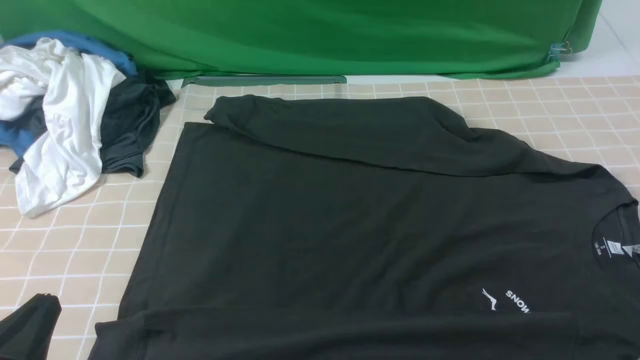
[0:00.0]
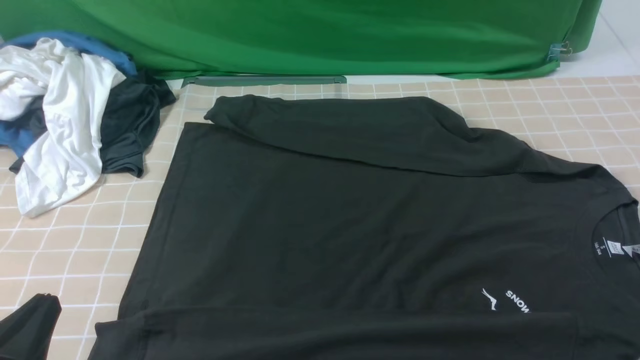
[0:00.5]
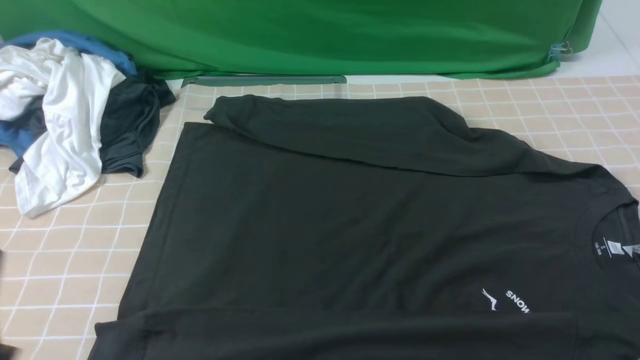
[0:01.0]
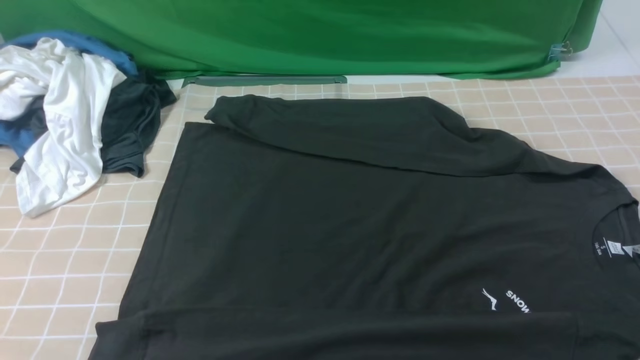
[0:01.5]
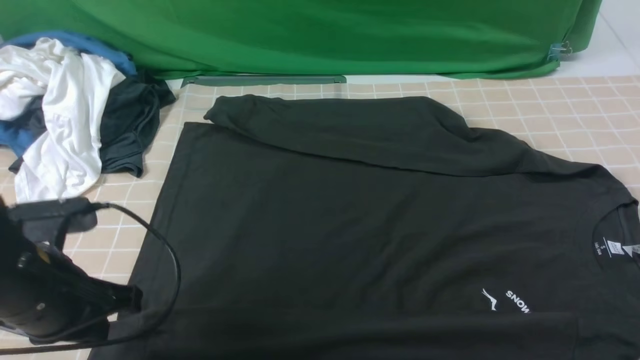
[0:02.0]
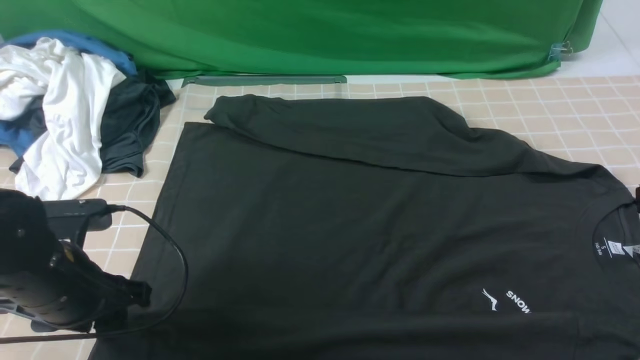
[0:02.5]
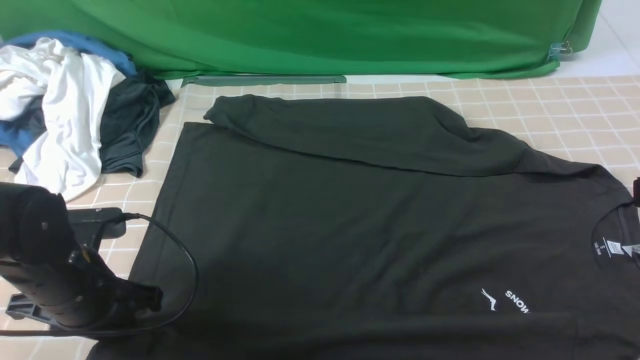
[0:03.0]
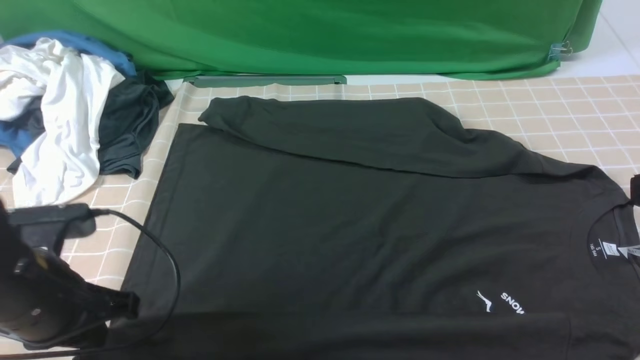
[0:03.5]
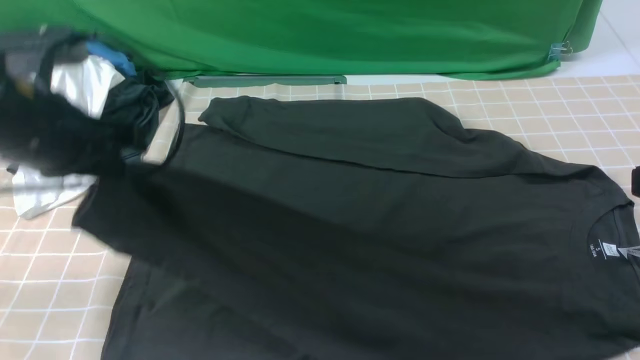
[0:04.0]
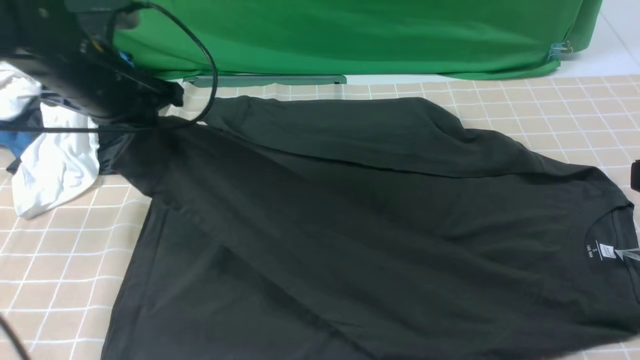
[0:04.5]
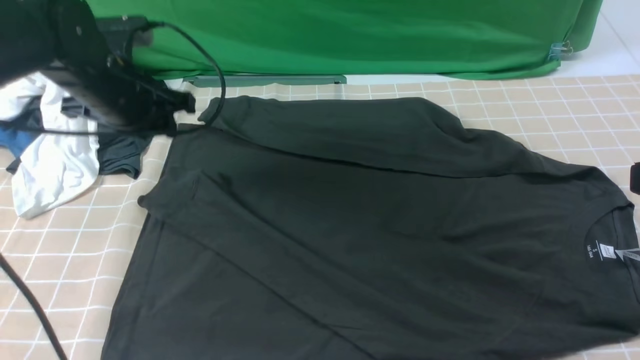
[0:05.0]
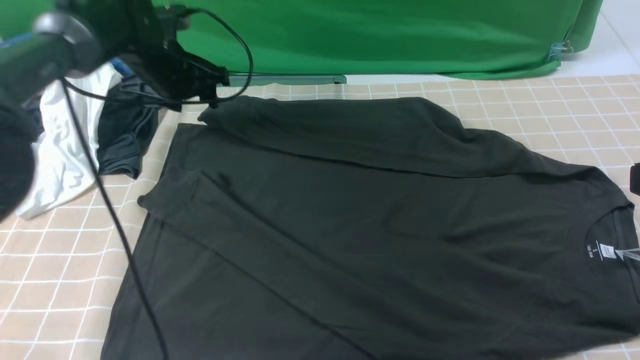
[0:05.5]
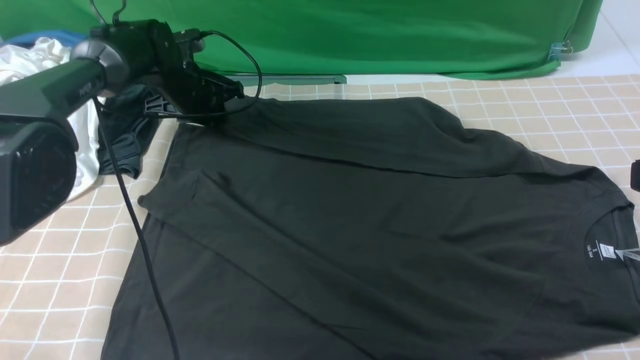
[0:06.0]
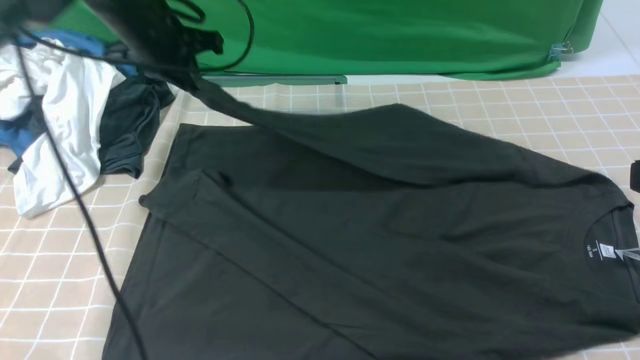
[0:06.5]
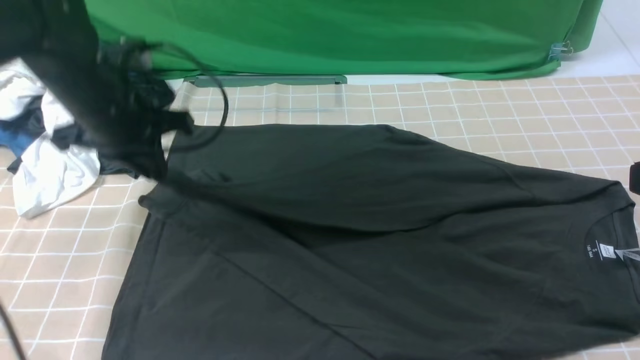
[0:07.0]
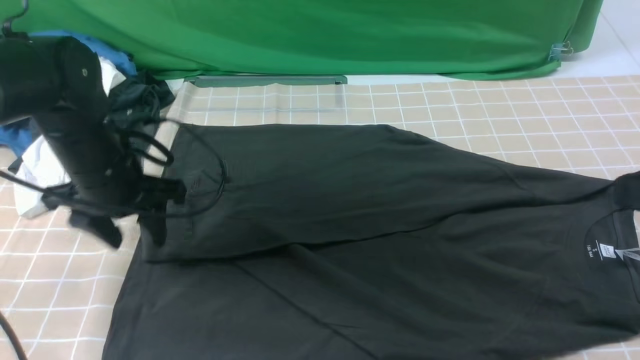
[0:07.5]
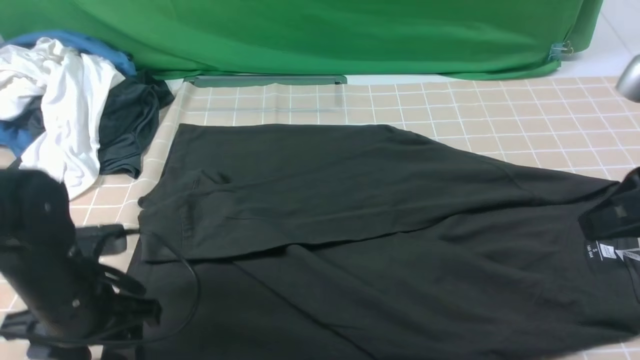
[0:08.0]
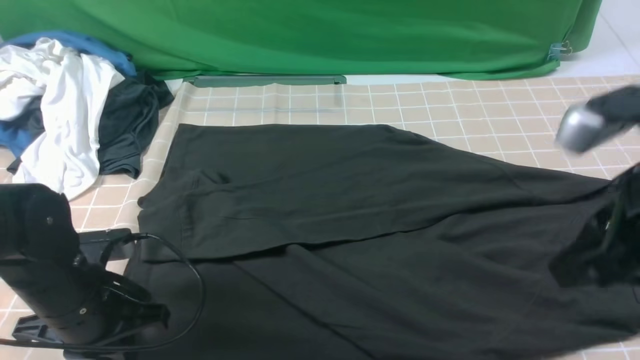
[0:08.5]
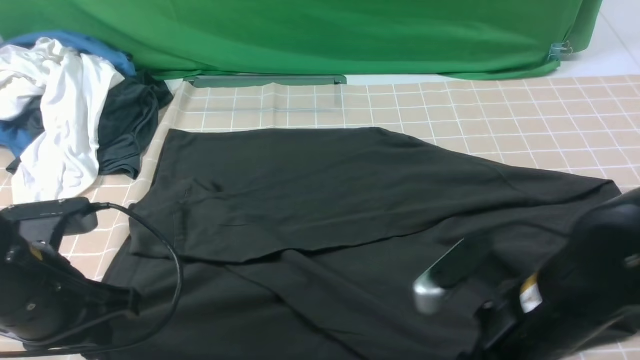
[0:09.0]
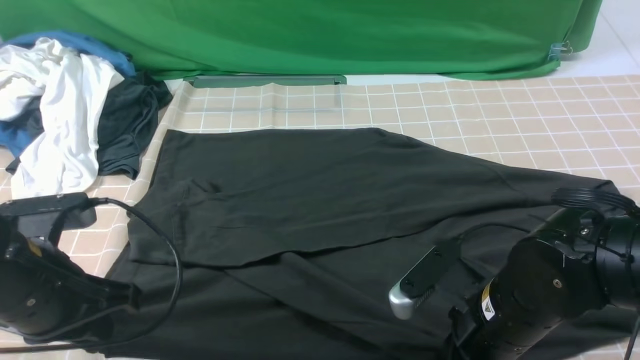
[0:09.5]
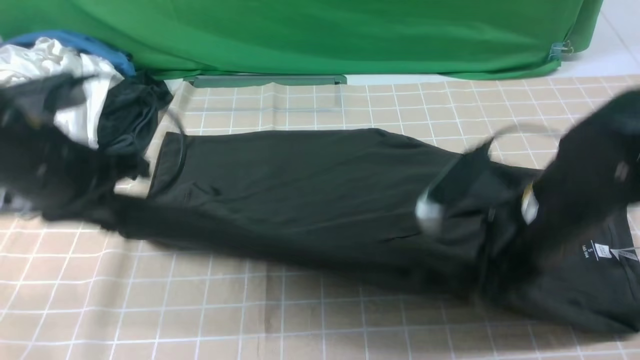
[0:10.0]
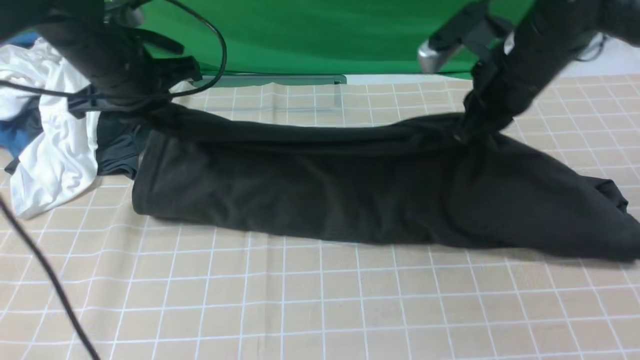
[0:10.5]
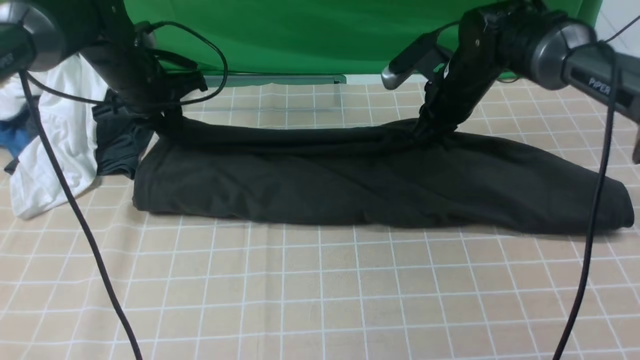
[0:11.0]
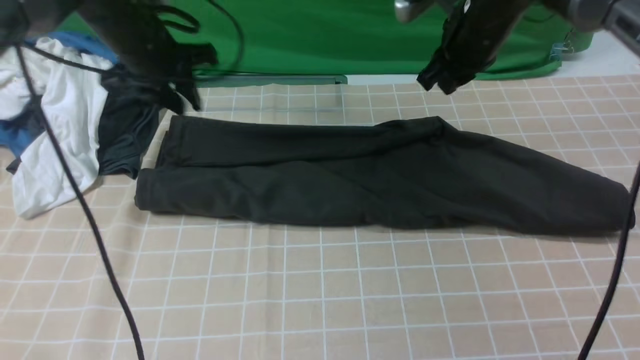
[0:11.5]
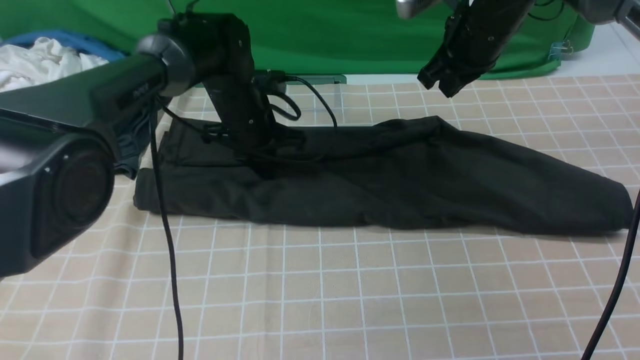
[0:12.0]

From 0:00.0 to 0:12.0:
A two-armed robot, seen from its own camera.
Step, from 0:00.0 to 0:03.0: use the left arm to clamp the cuff closest to it.
Step, from 0:03.5 to 0:05.0: use the left arm to drag and place the cuff at the centered position on the left edge of the fabric.
Step, from 0:05.5 to 0:06.0: use the left arm to clamp the cuff farthest from it.
Step, from 0:06.5 to 0:07.0: use the left arm to drag and drop the cuff onto the cuff closest to the left arm.
Step, from 0:08.0 to 0:09.5: use both arms simultaneously to clamp the lower edge of the clothing fabric.
From 0:00.0 to 0:02.0: The left gripper moves forward, approximately 15 cm.
From 0:02.0 to 0:04.0: The right gripper moves forward, roughly 5 cm. The left gripper moves upward and forward, approximately 10 cm, and opens, then closes again.
From 0:04.0 to 0:06.0: The left gripper moves forward and downward, some 30 cm, and opens up.
From 0:06.0 to 0:08.0: The right gripper travels forward by about 5 cm. The left gripper is displaced backward by approximately 30 cm, and opens up.
From 0:08.0 to 0:10.0: The left gripper travels upward by approximately 15 cm, and closes up; the right gripper moves to the left, downward and forward, about 15 cm, and opens and closes again.
From 0:10.0 to 0:12.0: The right gripper heads forward, covering approximately 20 cm. The left gripper shifts about 25 cm forward, downward and to the right.

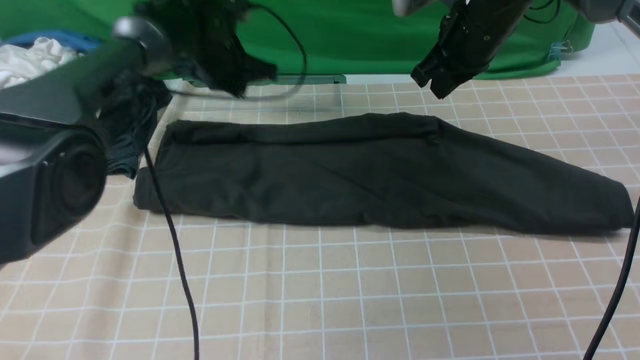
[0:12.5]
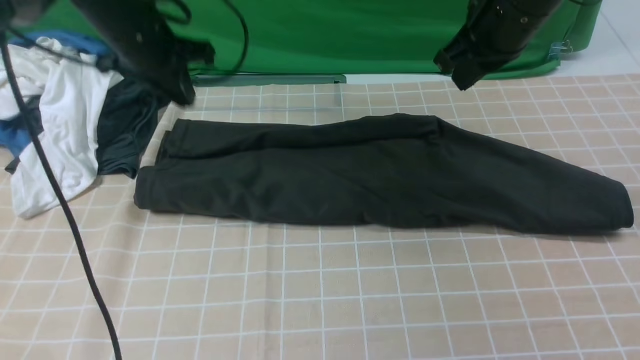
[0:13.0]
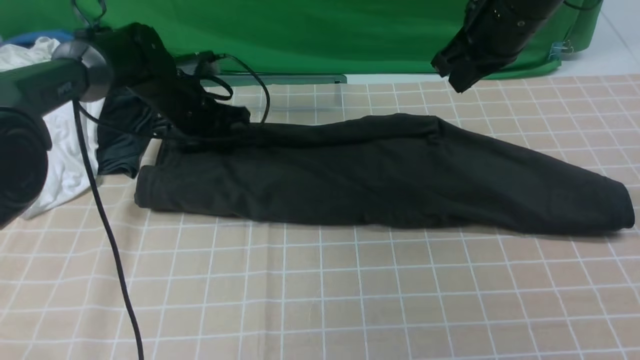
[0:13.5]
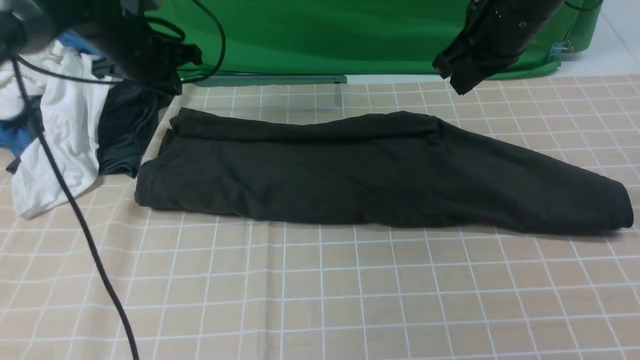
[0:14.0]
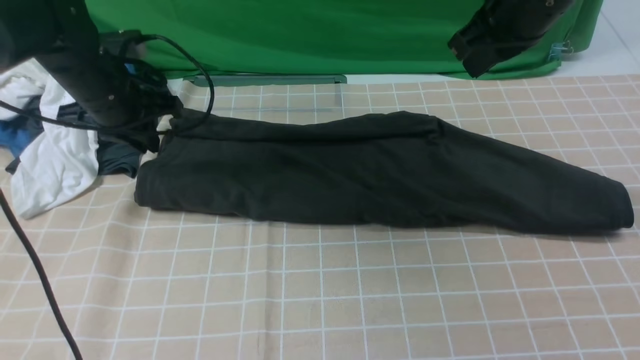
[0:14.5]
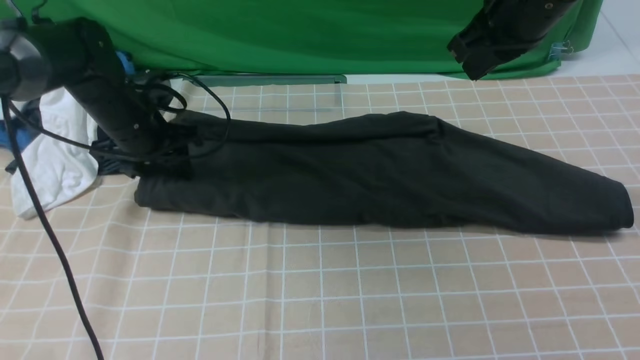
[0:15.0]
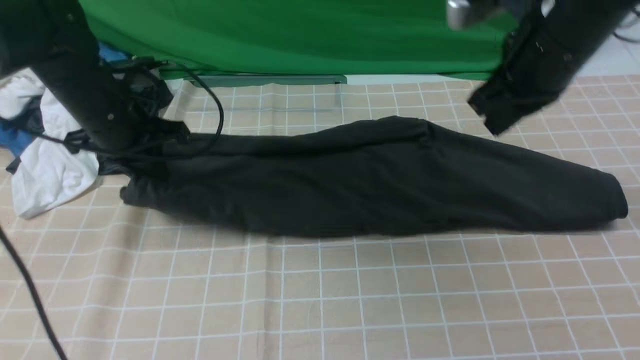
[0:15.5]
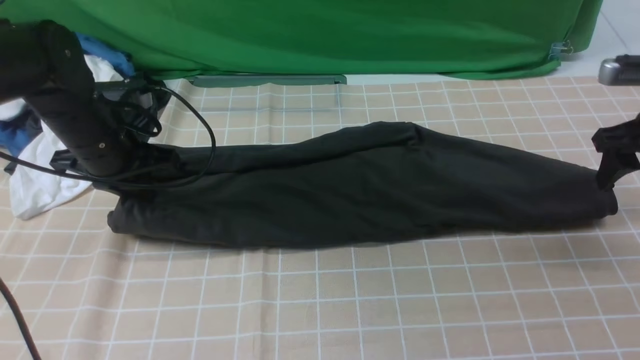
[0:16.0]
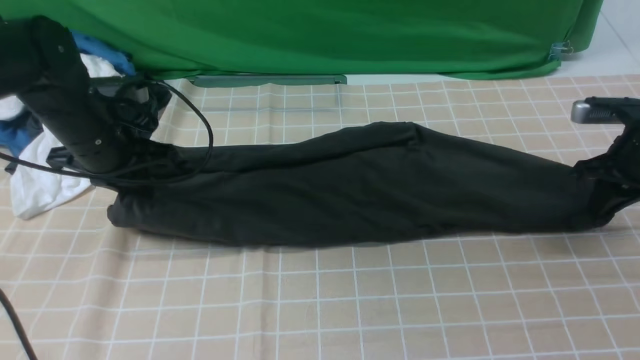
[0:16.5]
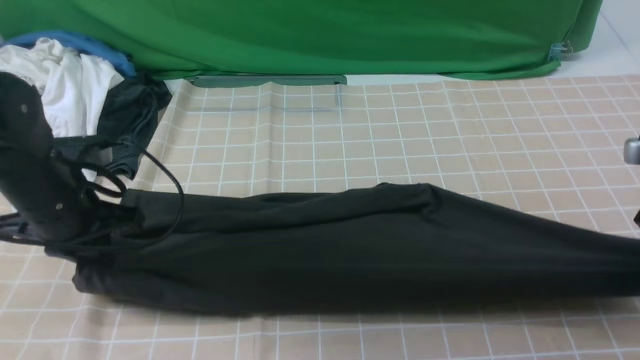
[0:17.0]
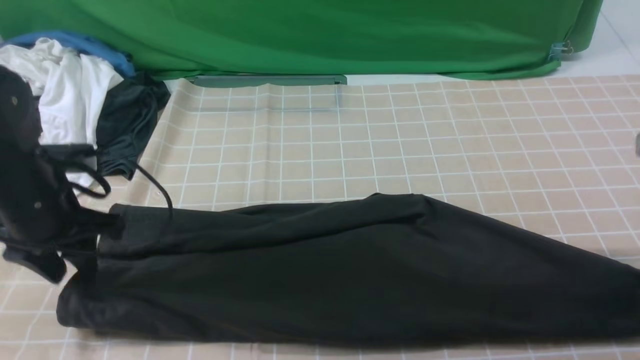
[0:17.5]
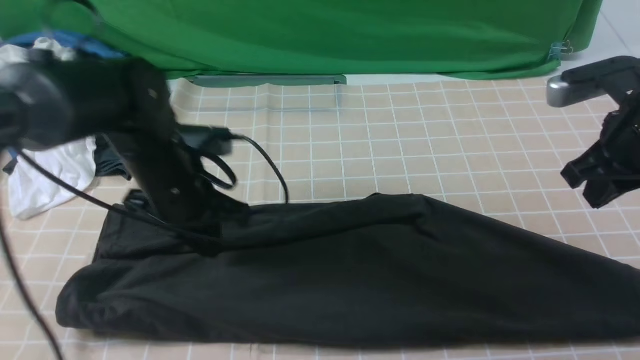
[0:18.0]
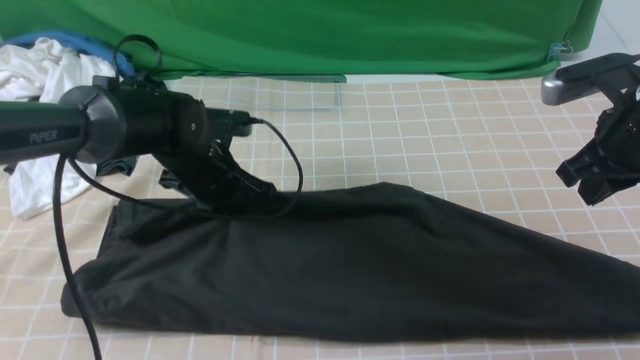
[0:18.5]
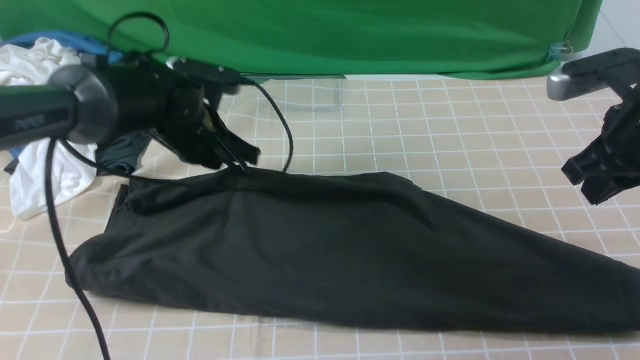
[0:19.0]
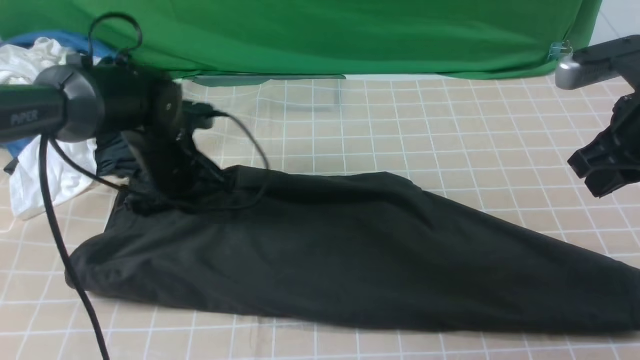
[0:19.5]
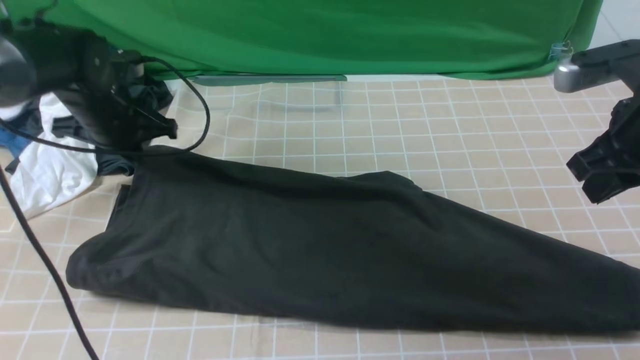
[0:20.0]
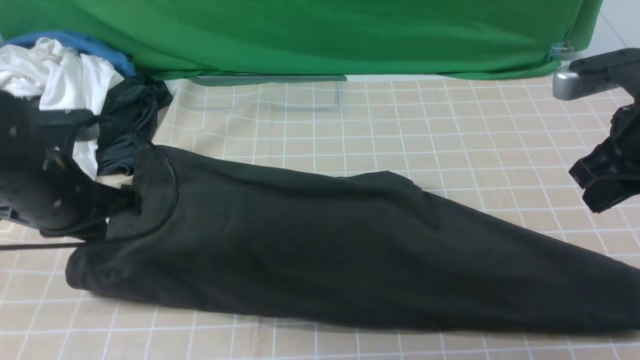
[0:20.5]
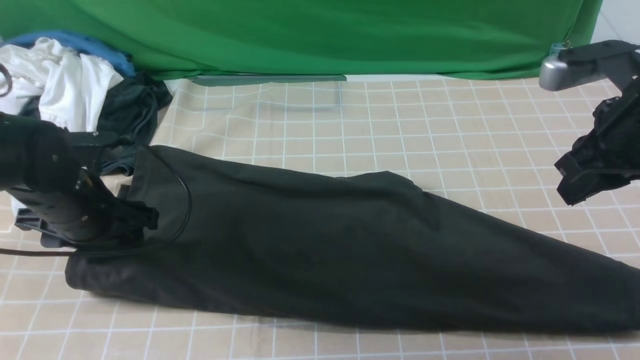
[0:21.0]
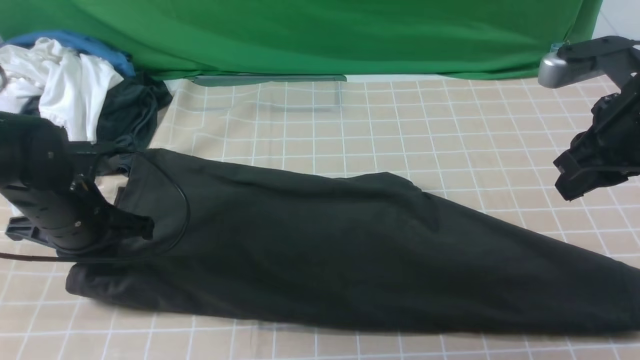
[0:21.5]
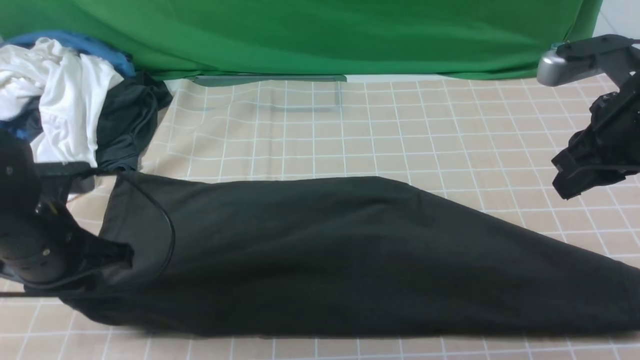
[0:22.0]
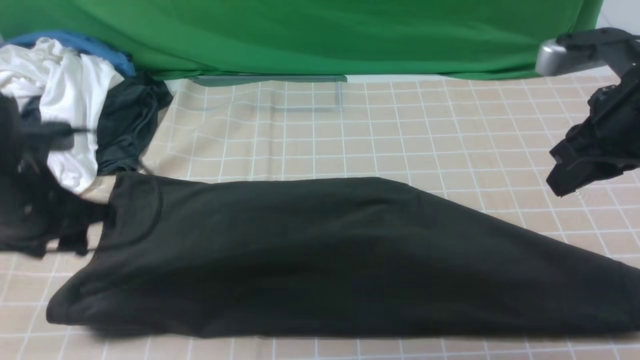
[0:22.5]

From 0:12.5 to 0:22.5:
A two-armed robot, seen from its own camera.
From 0:12.5 to 0:14.5: The left gripper goes about 15 cm to the left and backward, and opens up. Meanwhile the right gripper moves backward and upward, about 10 cm.
From 0:14.5 to 0:16.5: The left gripper is displaced backward by about 5 cm, and closes its fingers. The right gripper is displaced to the right and downward by approximately 25 cm, and opens, then closes once more.
From 0:16.5 to 0:18.5: The left gripper moves to the right and downward, about 15 cm, and opens, then closes again. The right gripper travels to the left, upward and backward by some 15 cm, and opens, then closes again.
From 0:18.5 to 0:20.5: The left gripper heads to the left, backward and upward, covering about 15 cm.
From 0:20.5 to 0:22.5: The left gripper opens, then closes again.
